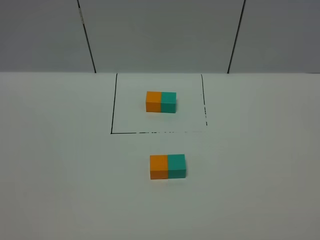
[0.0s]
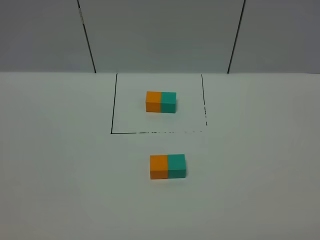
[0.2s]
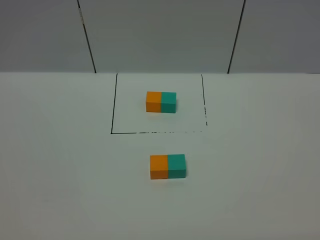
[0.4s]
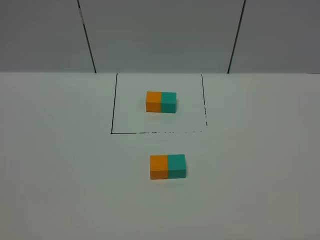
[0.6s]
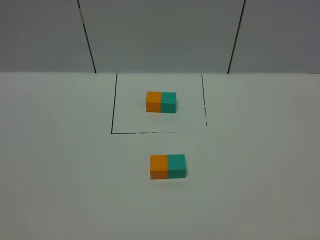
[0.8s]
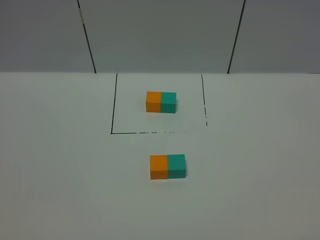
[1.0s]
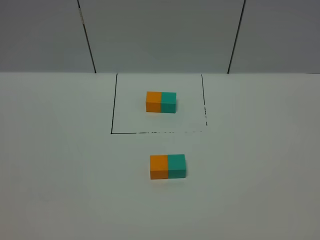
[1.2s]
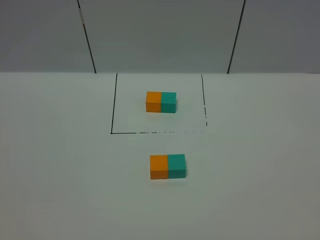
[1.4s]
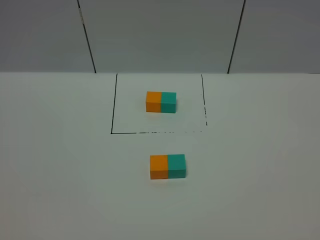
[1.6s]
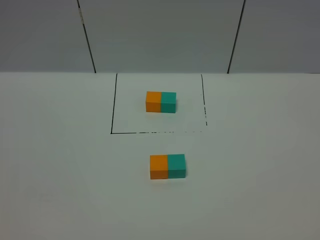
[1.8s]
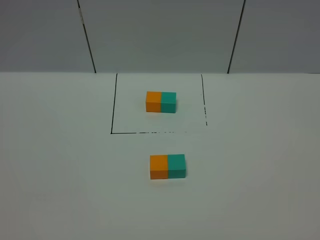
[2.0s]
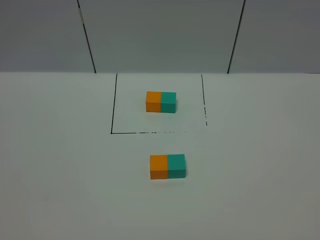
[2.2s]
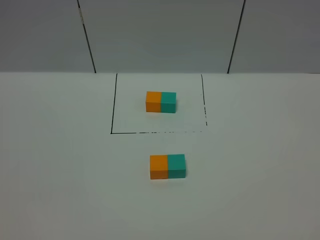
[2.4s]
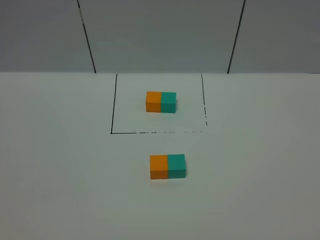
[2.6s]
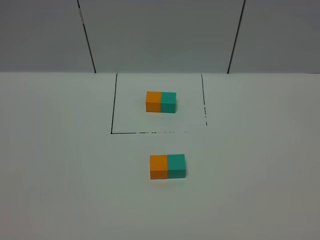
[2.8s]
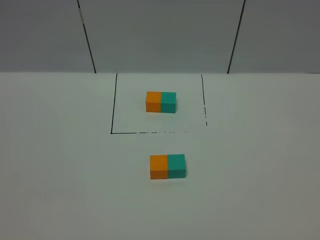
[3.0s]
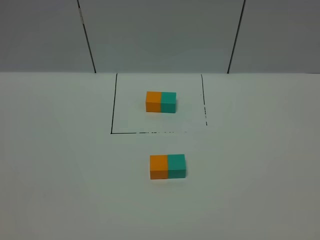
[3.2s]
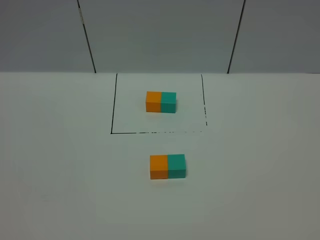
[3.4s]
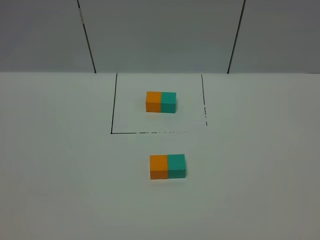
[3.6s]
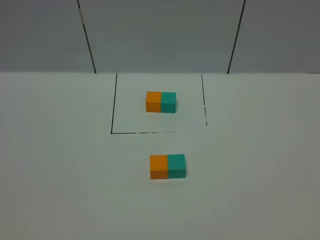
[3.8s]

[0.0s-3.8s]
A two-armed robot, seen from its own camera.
Task of the whole recording: According to the building block template in front, assemble the scattered blocks together.
1.2s to 3.8s: The two grippers keep their place.
